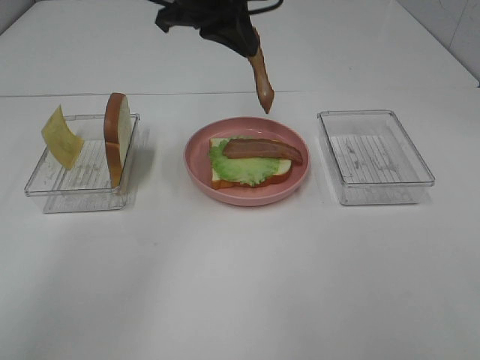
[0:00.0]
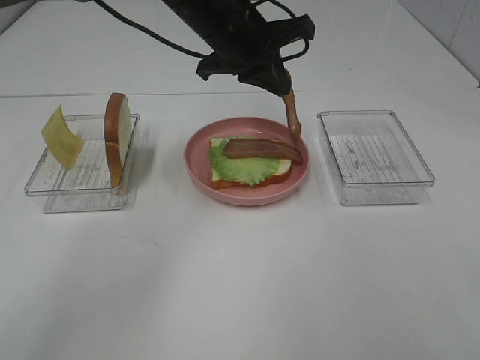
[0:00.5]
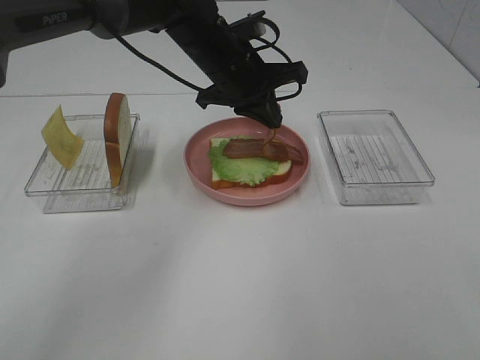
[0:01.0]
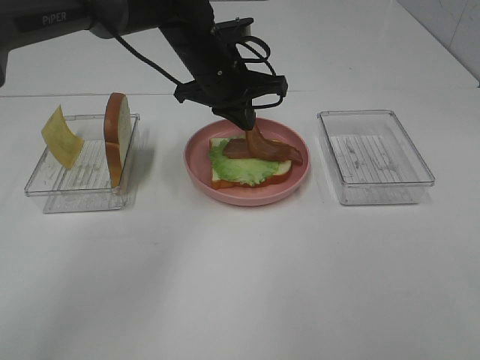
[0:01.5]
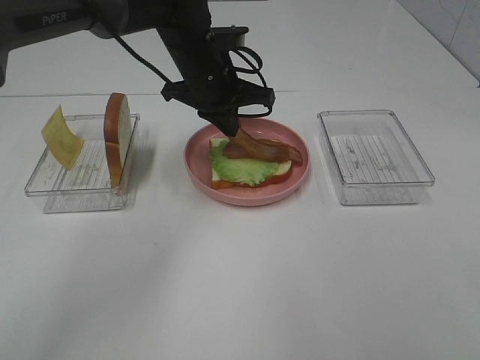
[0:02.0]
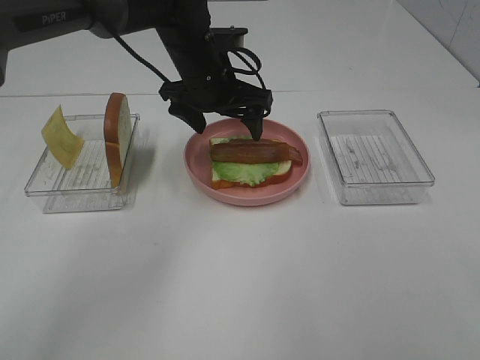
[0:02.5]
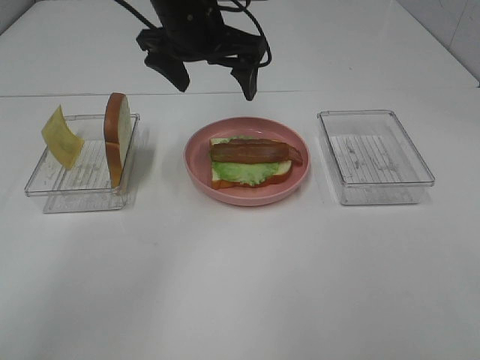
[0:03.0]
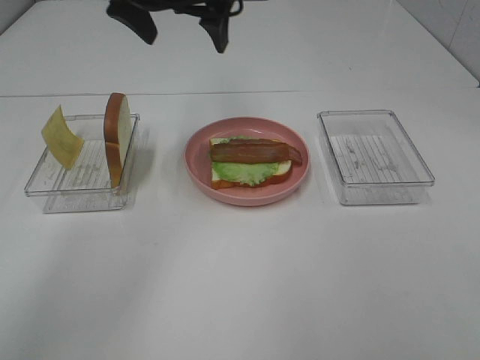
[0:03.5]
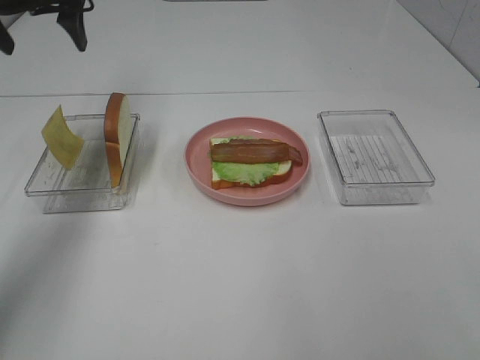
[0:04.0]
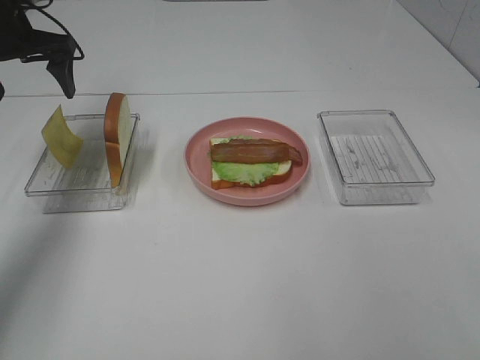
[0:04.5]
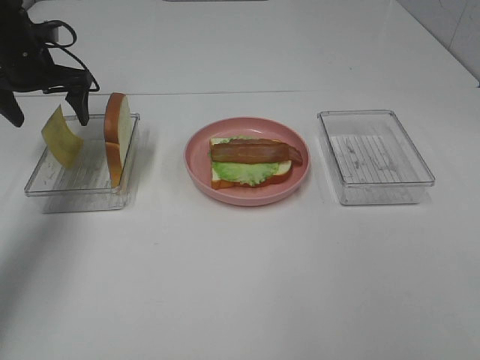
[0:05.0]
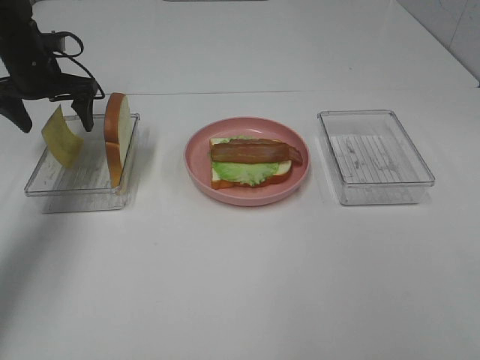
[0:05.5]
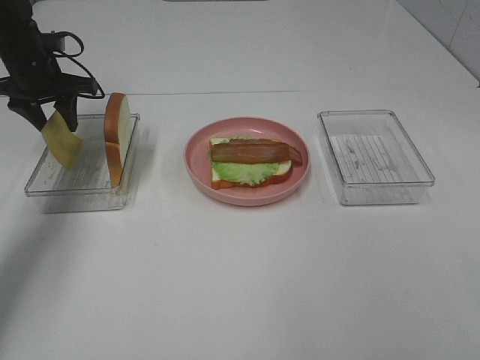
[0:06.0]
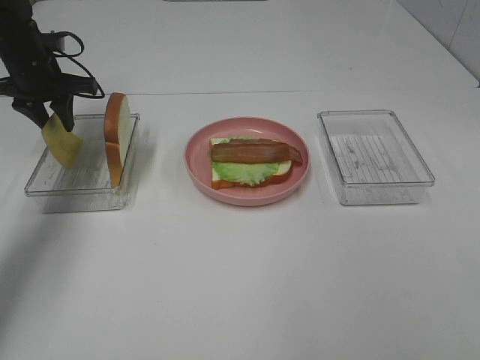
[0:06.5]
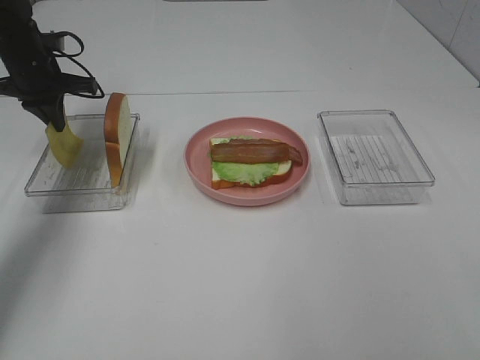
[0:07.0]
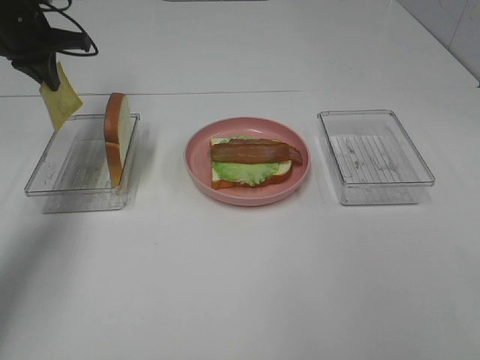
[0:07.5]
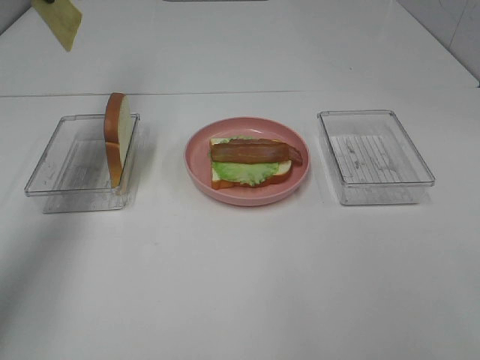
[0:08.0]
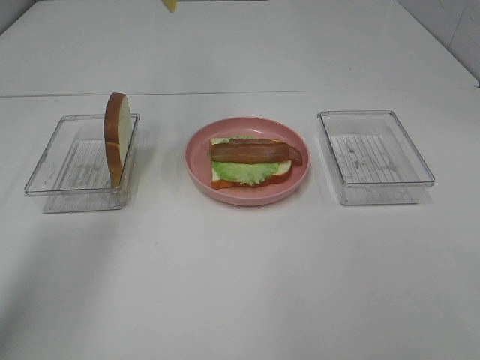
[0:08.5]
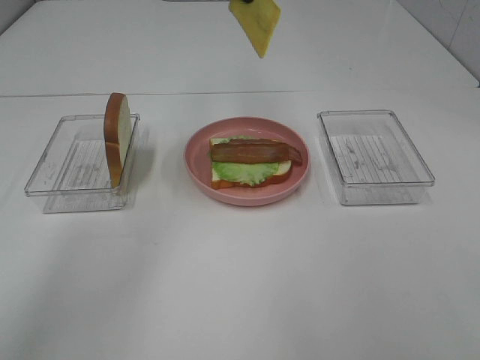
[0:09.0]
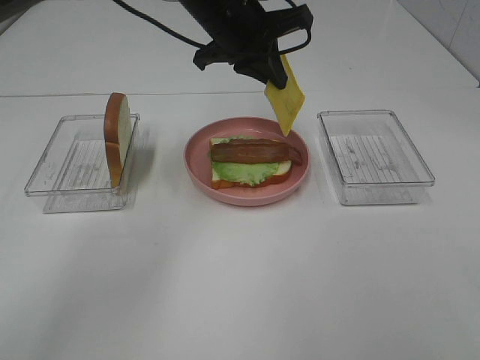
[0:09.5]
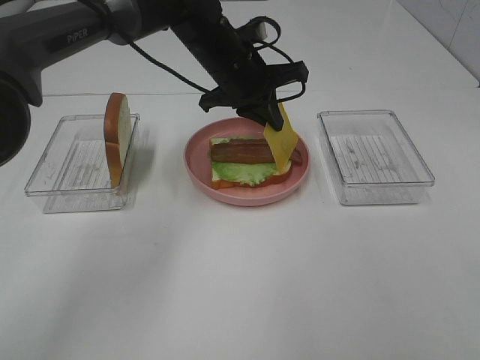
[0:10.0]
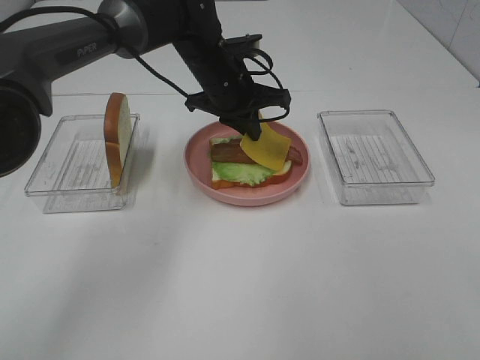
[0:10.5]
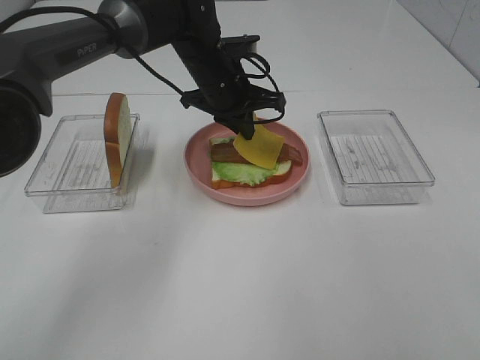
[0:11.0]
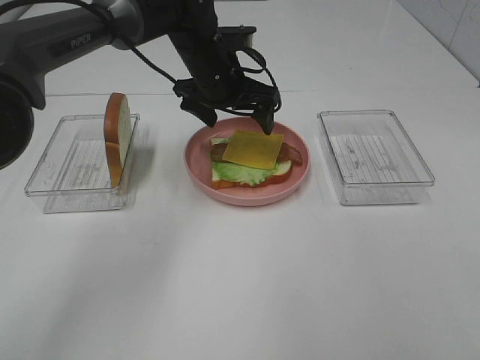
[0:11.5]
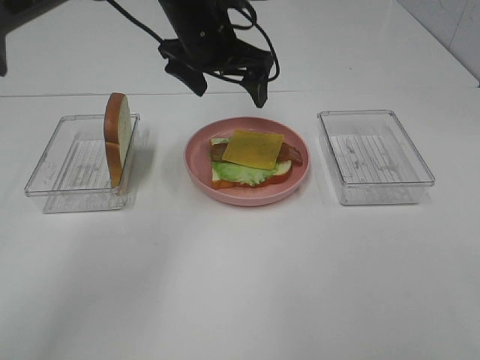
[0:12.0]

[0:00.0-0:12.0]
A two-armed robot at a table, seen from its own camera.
Task of the whole recording: Make sandwiches.
Step, 0:00.0 to 0:02.5: Left hand:place bacon on bacon.
Step, 0:03.0 to 0:07.0: Left hand:grab the cheese slice.
Step, 0:07.5 to 0:11.5: Left hand:place the cheese slice on top of the bacon.
0:00.0 to 0:02.0: The left gripper is displaced downward by approximately 10 cm.
0:02.0 to 0:04.0: The left gripper is displaced to the left and upward by approximately 25 cm, and opens.
0:04.0 to 0:06.0: The left gripper travels downward by some 15 cm, and closes up.
0:06.0 to 0:08.0: The left gripper is displaced upward by some 20 cm, and closes its fingers.
0:08.0 to 0:10.0: The left gripper is displaced to the right and downward by some 30 cm.
0:10.0 to 0:12.0: The left gripper heads upward, covering some 5 cm, and opens up.

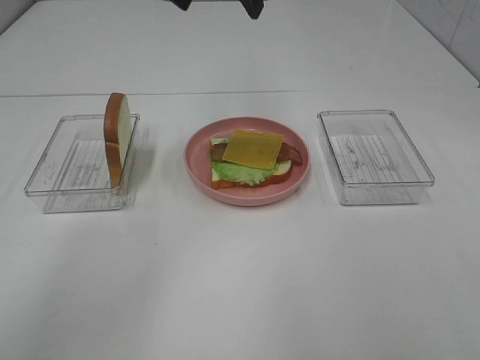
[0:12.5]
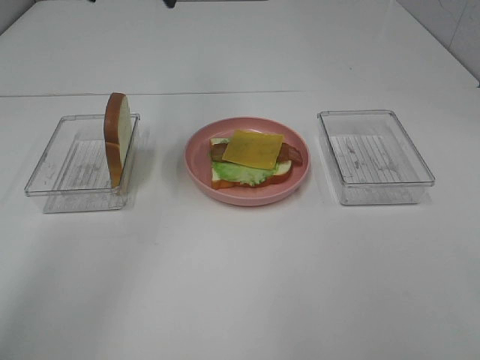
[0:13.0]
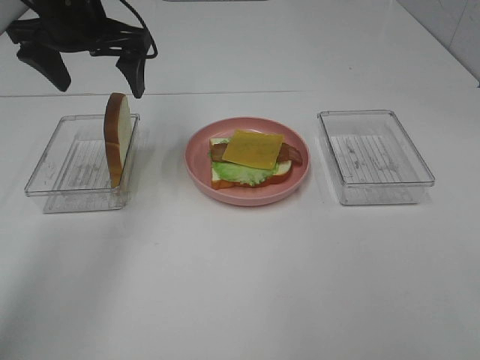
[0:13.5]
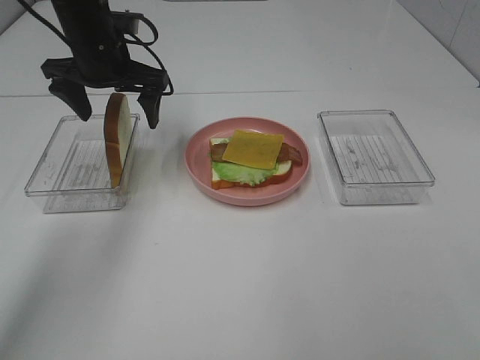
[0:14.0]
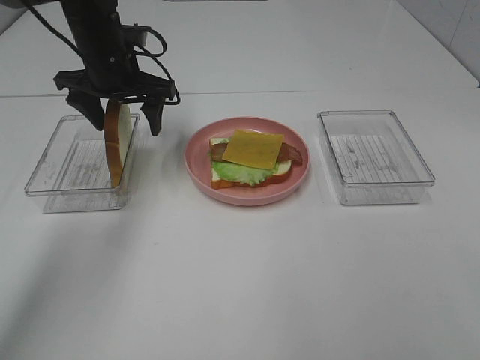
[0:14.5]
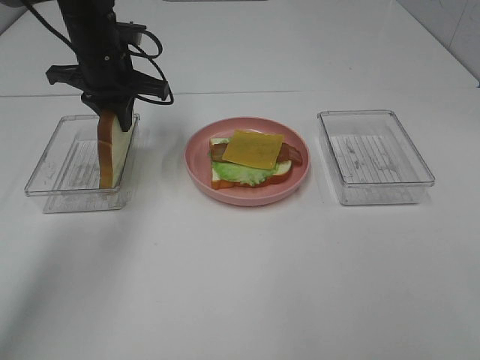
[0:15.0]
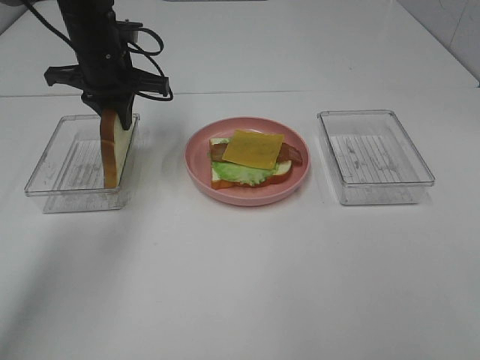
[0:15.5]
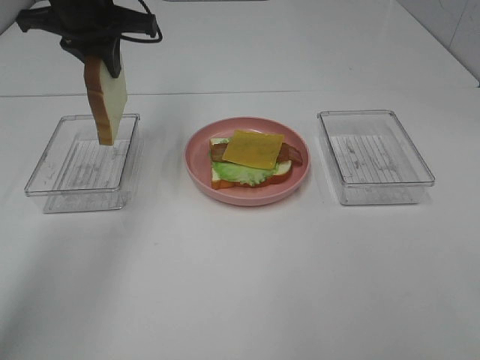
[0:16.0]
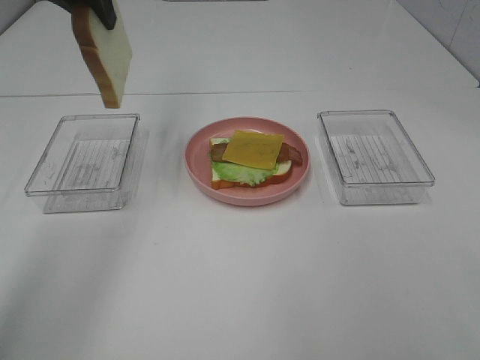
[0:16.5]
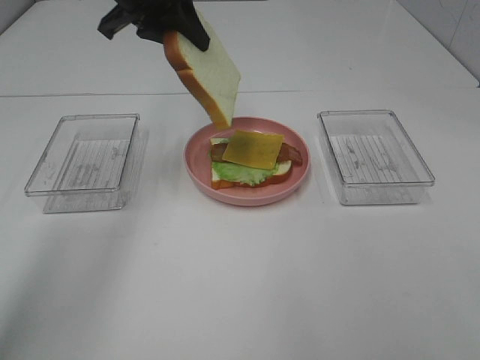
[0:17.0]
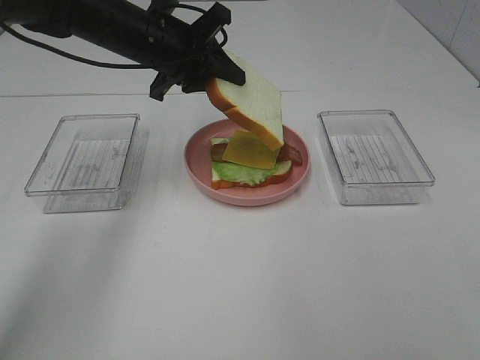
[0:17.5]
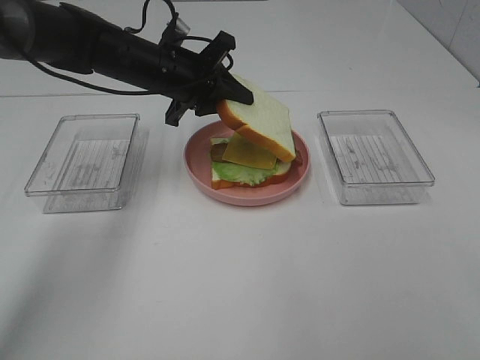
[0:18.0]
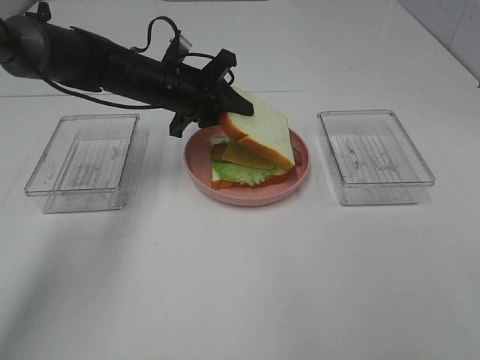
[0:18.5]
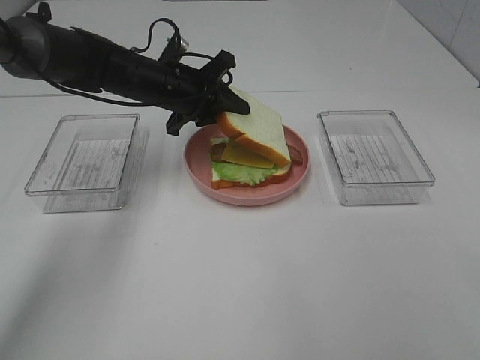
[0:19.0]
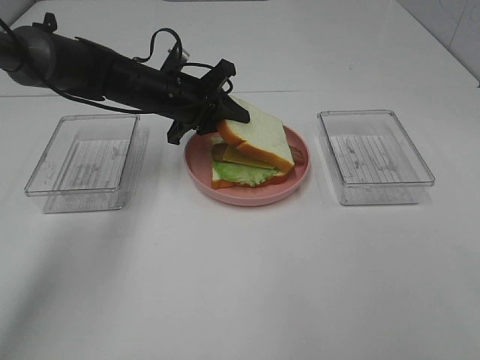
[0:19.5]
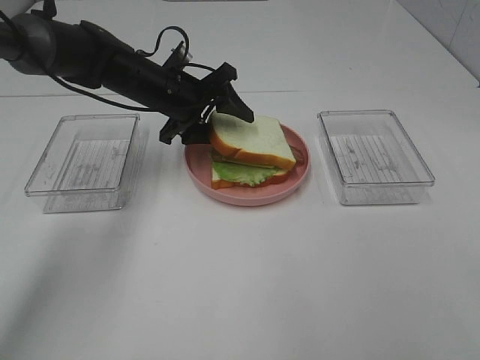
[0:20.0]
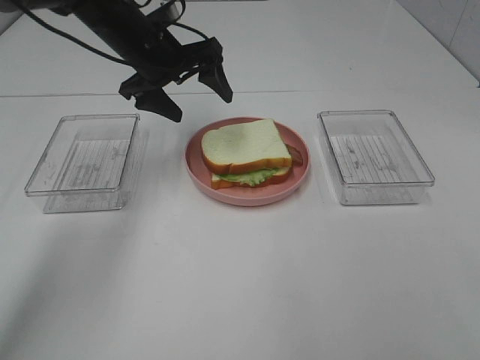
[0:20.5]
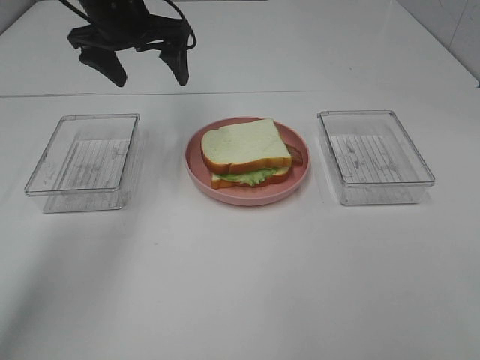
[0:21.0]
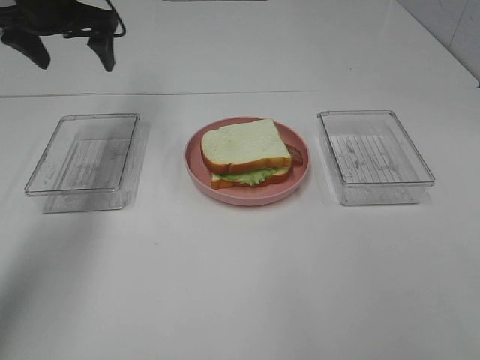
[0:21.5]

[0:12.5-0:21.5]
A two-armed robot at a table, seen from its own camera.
Task of the whole recording: Make sandwiches.
Step, 0:12.5 to 0:15.5: Left hand:grab the bread slice.
Step, 0:16.0 to 0:20.0: Left hand:place the bread slice on the cheese slice.
0:12.5 to 0:14.5: The left gripper moves downward and to the left, roughly 20 cm.
0:14.5 to 0:17.0: The left gripper is displaced upward by about 10 cm, and closes up.
0:17.0 to 0:19.5: The left gripper goes approximately 15 cm downward.
0:19.5 to 0:21.5: The left gripper heads upward and to the left, covering roughly 20 cm, and opens its fingers.

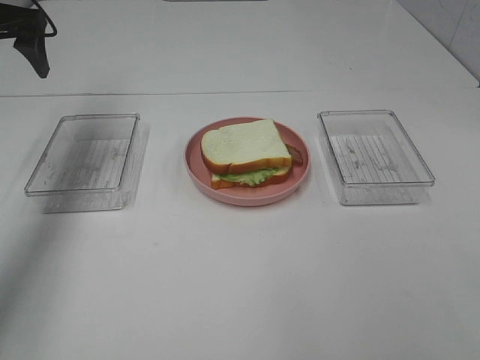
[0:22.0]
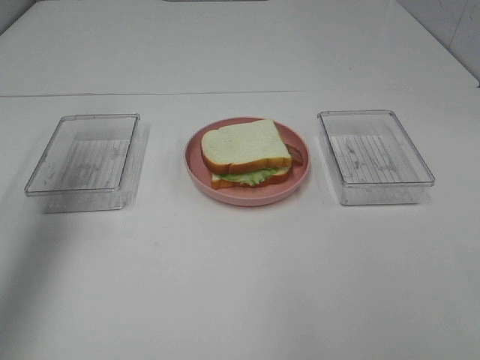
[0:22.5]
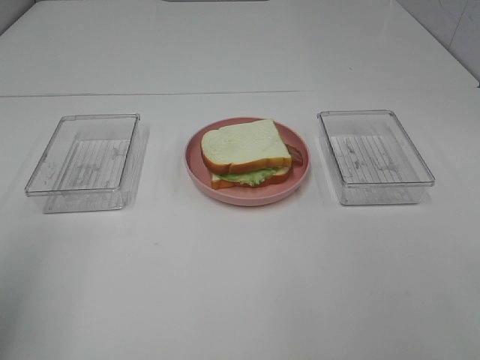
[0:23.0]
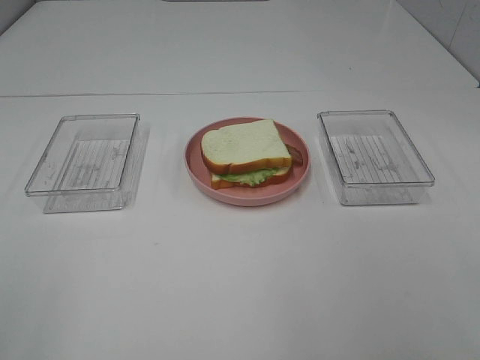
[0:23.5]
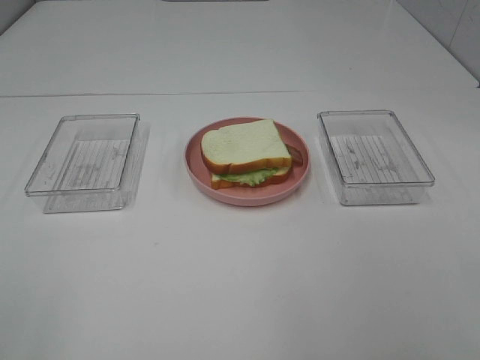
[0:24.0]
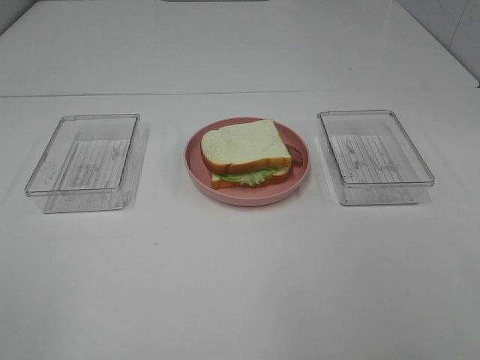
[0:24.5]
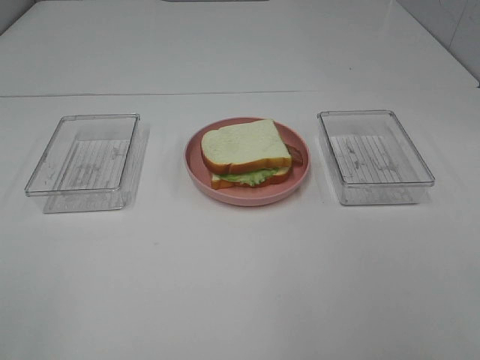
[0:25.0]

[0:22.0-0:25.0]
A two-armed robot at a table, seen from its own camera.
Task of the whole recording: Make sandwiches.
0:22.0 to 0:23.5: The left gripper moves backward, some 40 cm.

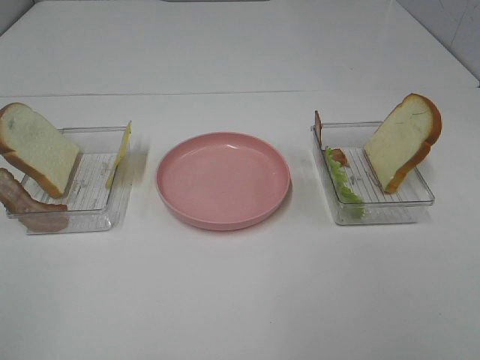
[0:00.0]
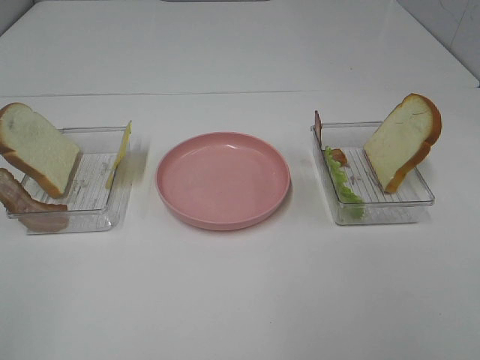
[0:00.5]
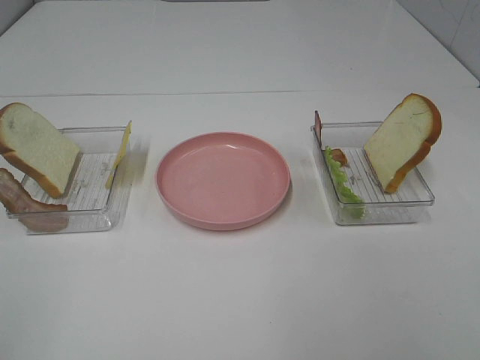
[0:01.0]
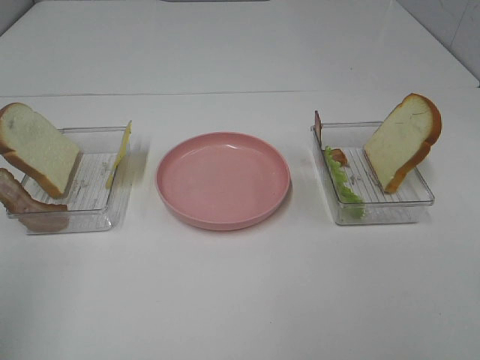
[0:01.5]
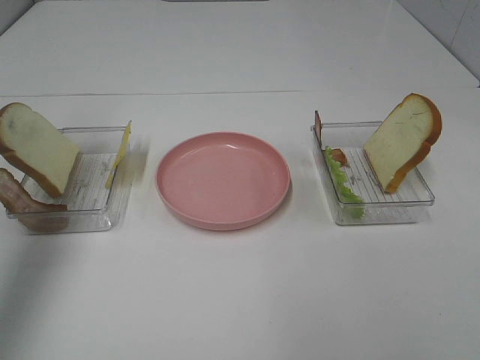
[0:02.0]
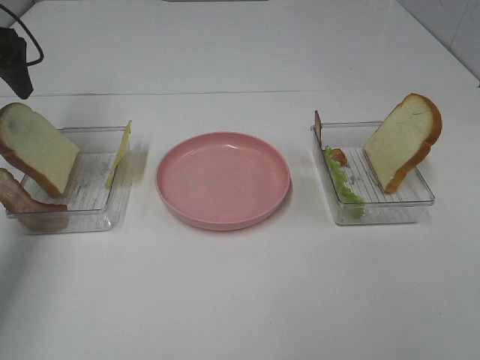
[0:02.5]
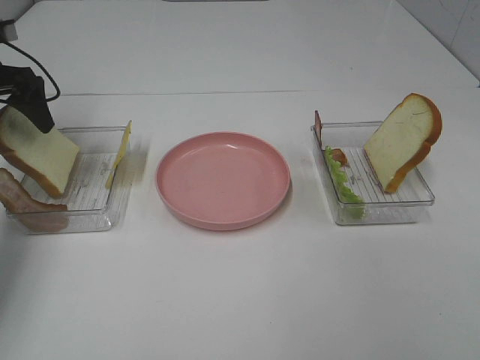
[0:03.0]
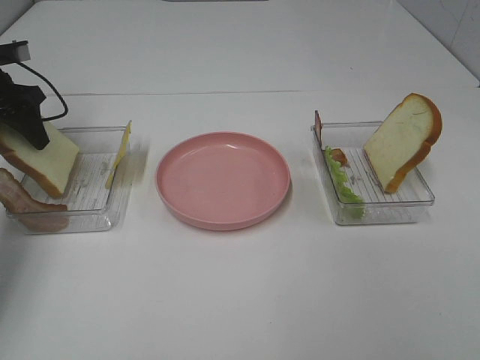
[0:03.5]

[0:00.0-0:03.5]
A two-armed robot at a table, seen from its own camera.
Task of the whole recording: Make sandwiches.
0:00.0 to 0:02.0: The left gripper is displaced forward by roughly 30 cm.
0:02.0 to 0:03.5: The left gripper goes approximately 25 cm downward and forward, and closes up.
